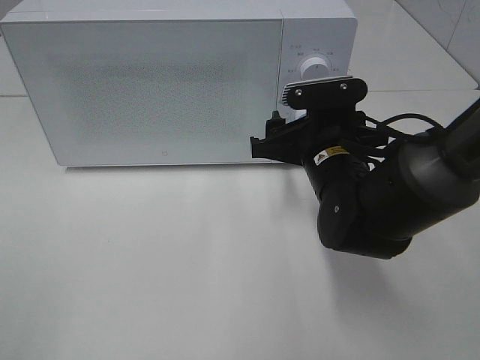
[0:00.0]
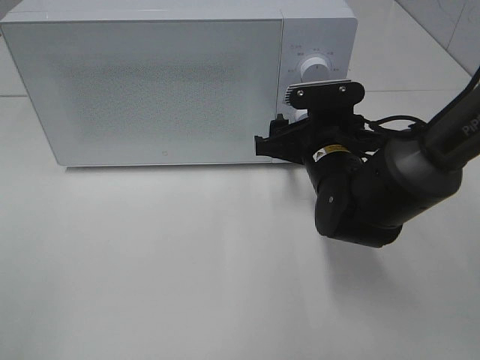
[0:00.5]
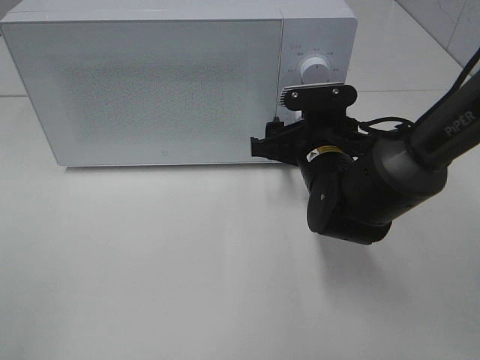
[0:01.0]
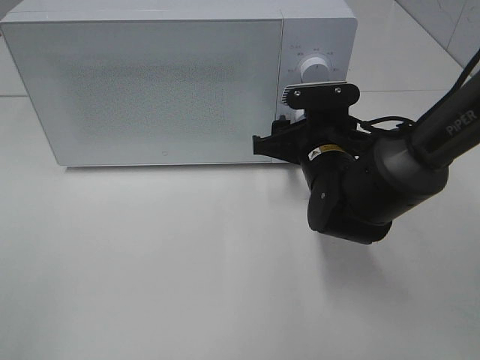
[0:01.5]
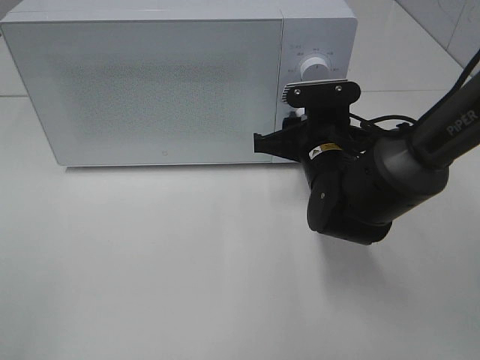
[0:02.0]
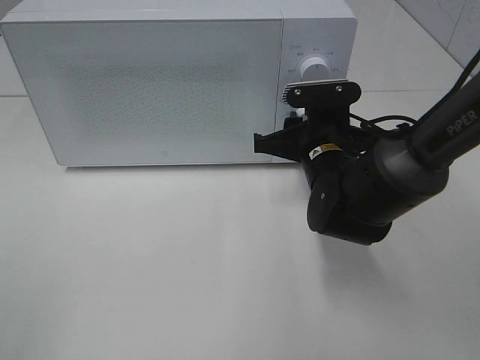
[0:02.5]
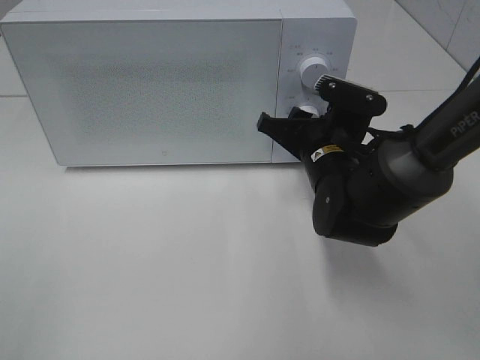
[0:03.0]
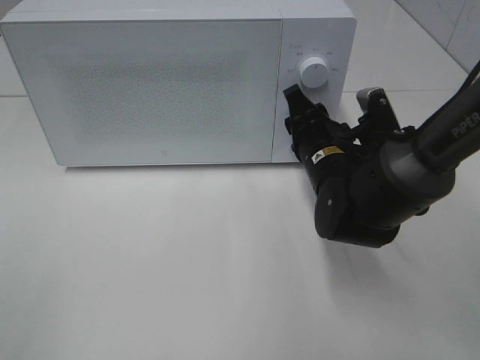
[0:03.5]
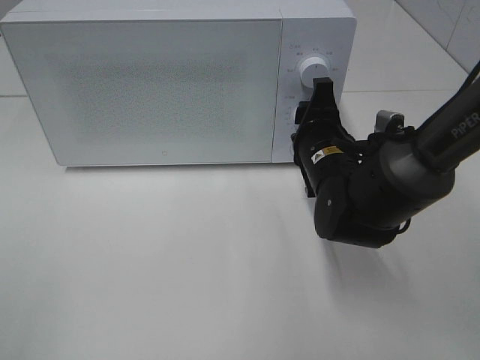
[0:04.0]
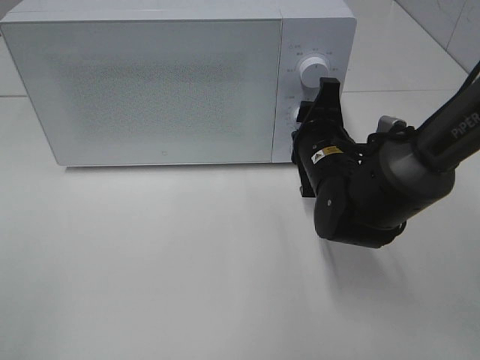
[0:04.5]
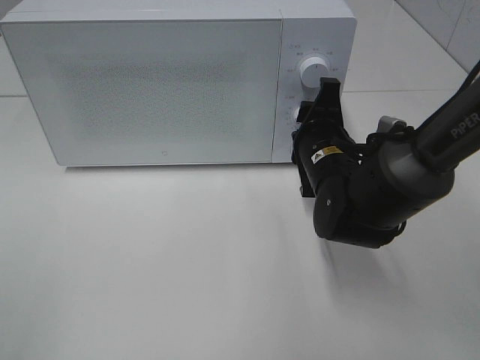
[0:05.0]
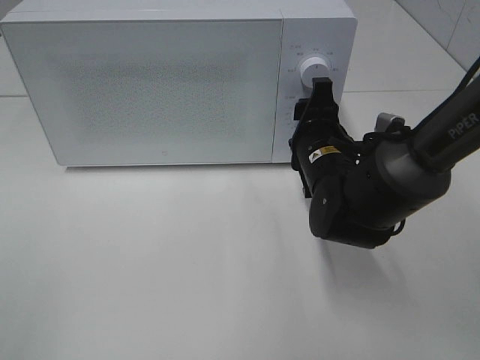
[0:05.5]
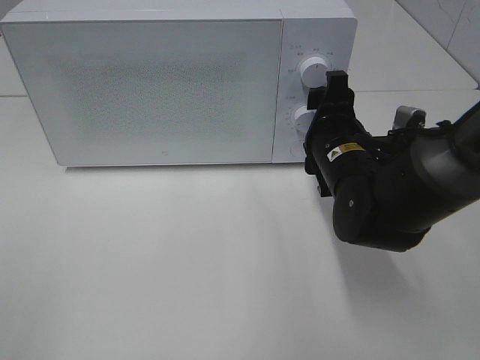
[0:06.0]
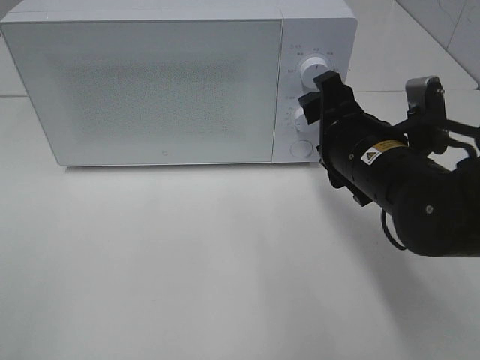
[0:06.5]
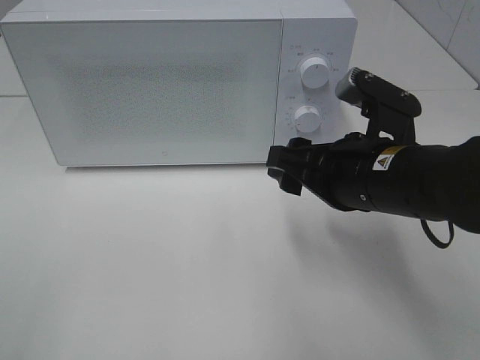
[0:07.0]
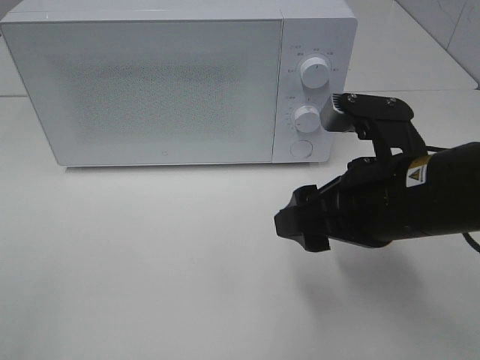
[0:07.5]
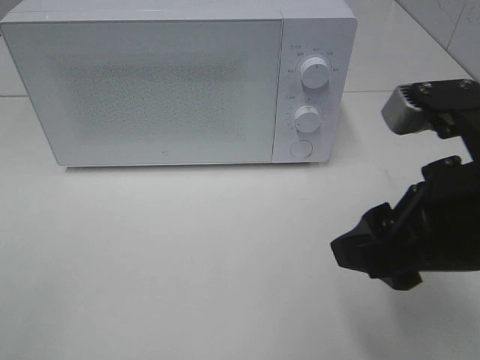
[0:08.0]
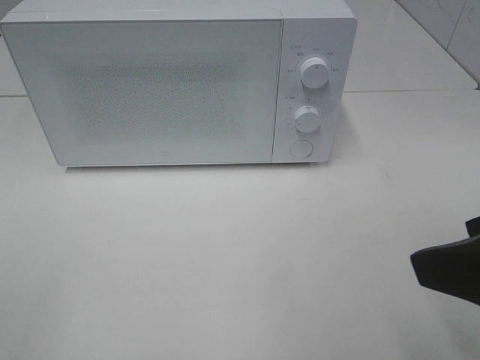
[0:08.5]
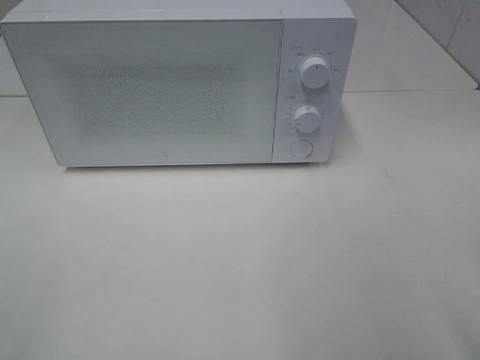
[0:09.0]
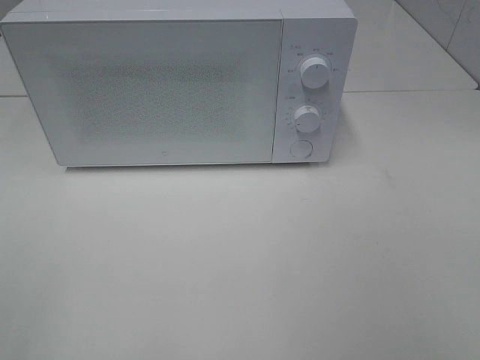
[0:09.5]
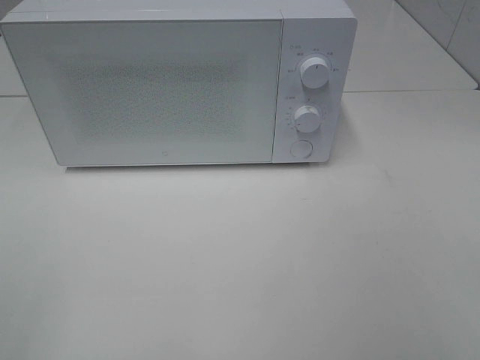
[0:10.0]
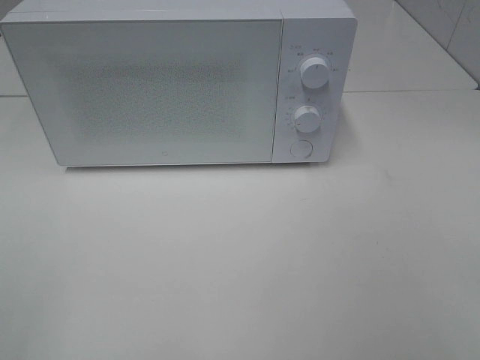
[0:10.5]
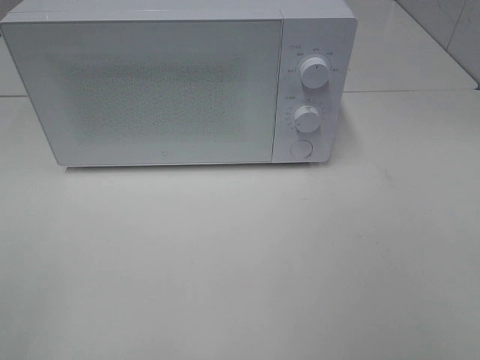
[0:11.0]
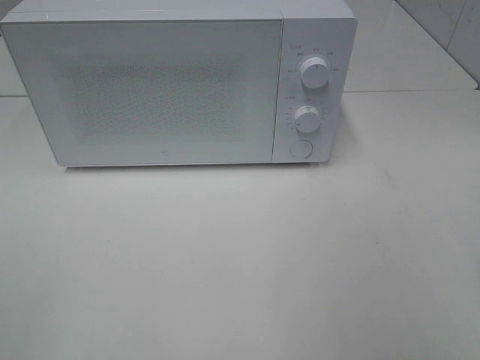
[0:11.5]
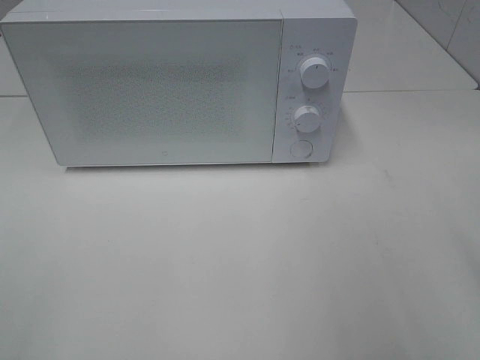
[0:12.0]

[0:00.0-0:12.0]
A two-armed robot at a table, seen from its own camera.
Task of the whole recording: Heat the burger.
Step, 0:00.0 to 0:05.5: Right hand: twist timer button.
0:00.0 to 0:02.0: The right gripper closes up.
0:04.0 to 0:06.0: The grippers move only a little.
0:06.0 to 0:08.0: The right gripper moves backward and upward, approximately 20 cm.
0:08.0 to 0:10.0: The right gripper goes some 20 cm backward and to the right.

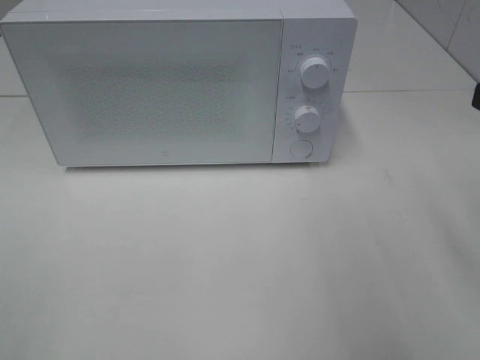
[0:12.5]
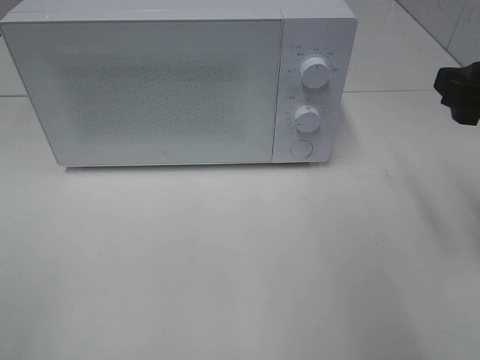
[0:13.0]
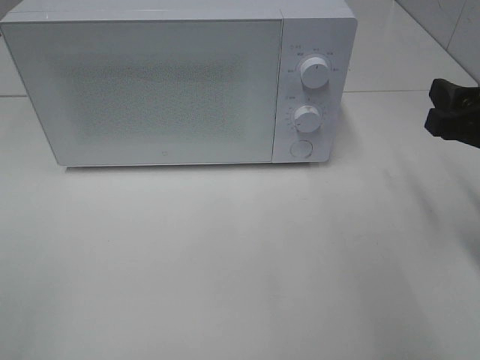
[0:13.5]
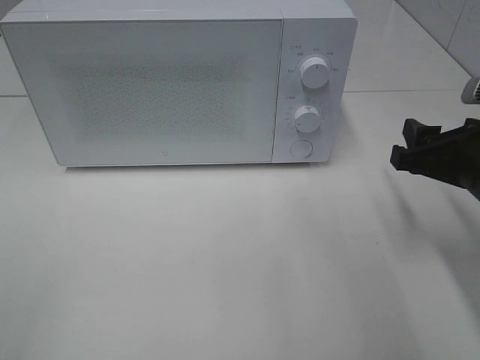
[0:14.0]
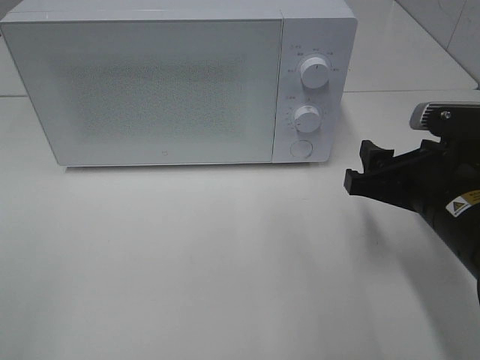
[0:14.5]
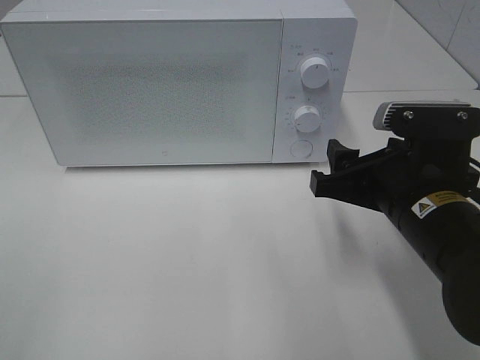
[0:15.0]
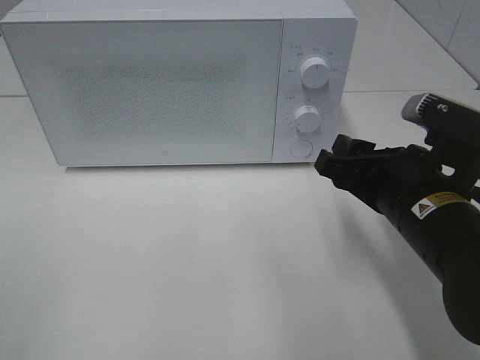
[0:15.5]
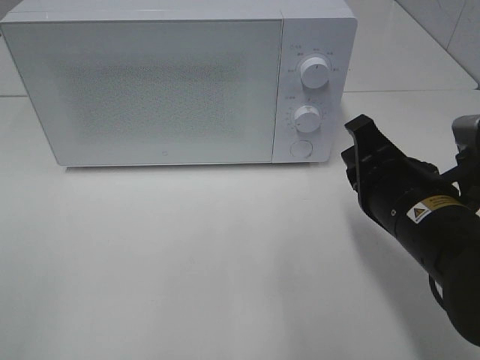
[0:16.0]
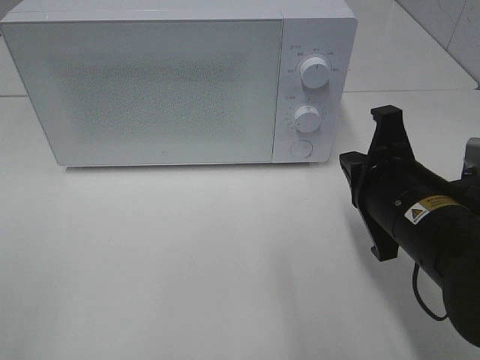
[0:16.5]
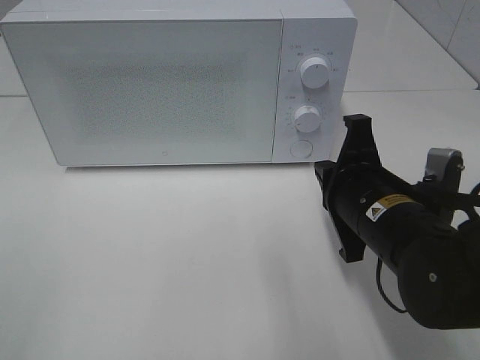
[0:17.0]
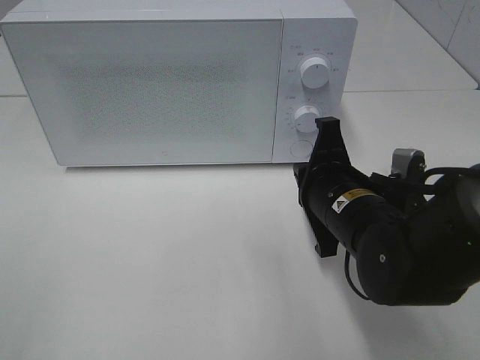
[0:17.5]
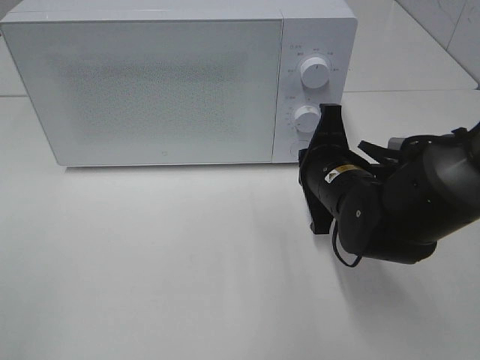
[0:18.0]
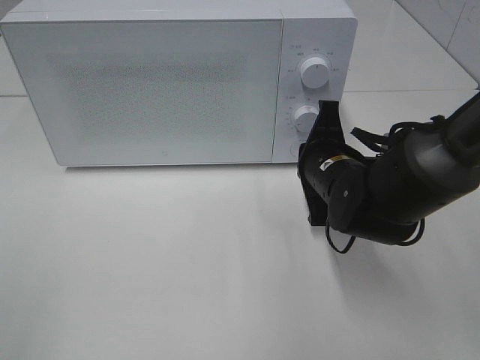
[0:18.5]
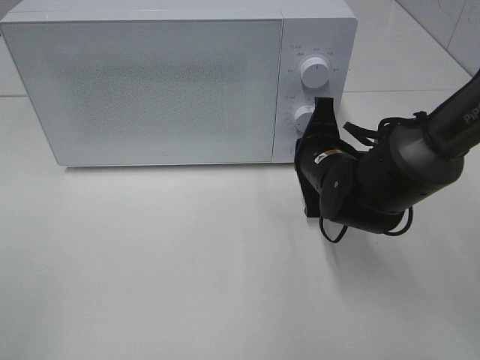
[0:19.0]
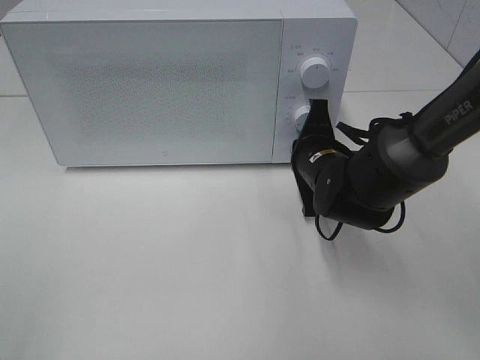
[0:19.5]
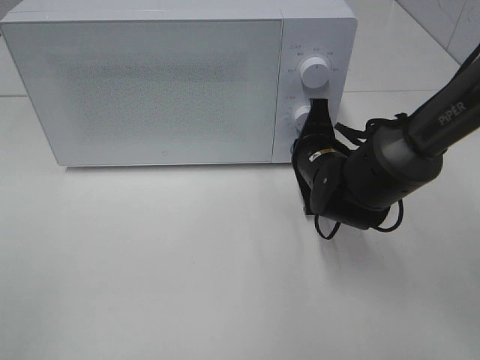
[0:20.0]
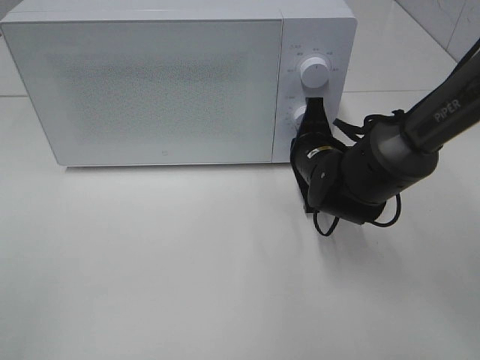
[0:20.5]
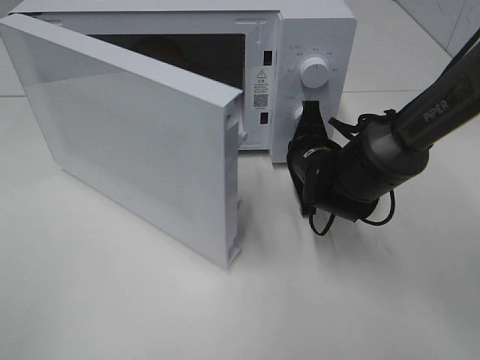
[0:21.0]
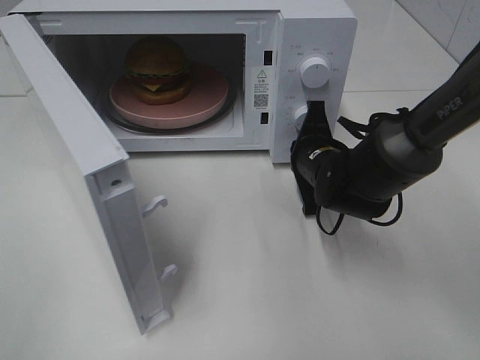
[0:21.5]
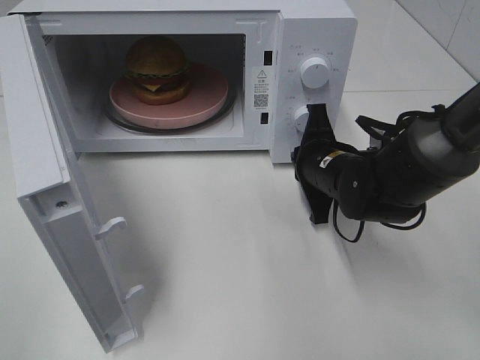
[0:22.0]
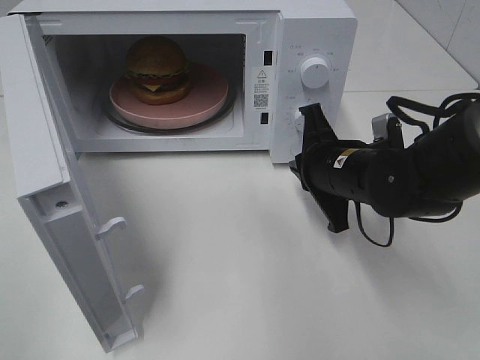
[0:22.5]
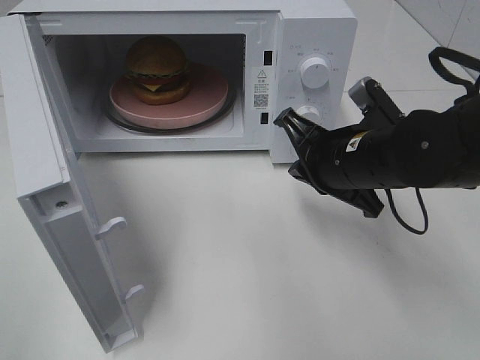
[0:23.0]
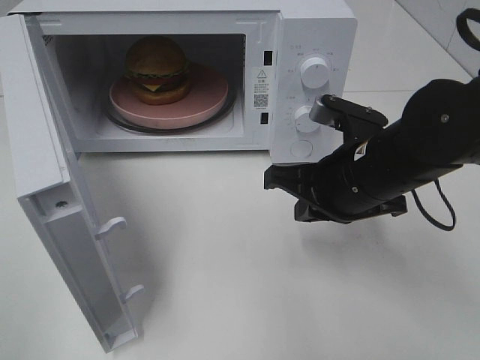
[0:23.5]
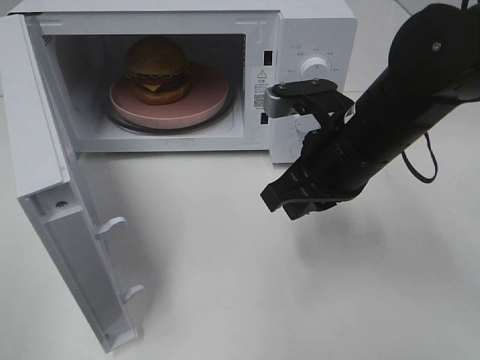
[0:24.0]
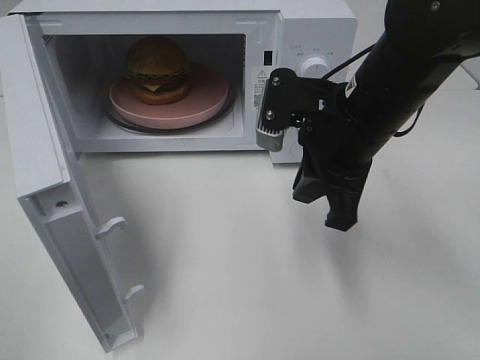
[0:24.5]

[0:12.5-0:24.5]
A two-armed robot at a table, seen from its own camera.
Task of the whole recording: Heat the burger.
Step, 0:12.5 to 0:22.0: Right hand: press the switch.
0:12.5 to 0:14.5: The right gripper travels downward and to the left by roughly 15 cm.
0:14.5 to 0:16.5: The right gripper closes.
0:16.5 to 0:18.5: The right gripper goes about 10 cm forward and downward.
0:18.5 to 0:20.5: The grippers stay close to where they were, moving slightly.
0:20.5 to 0:22.5: The right gripper changes place by approximately 5 cm.
0:22.5 to 0:24.5: The right gripper shifts about 10 cm upward.

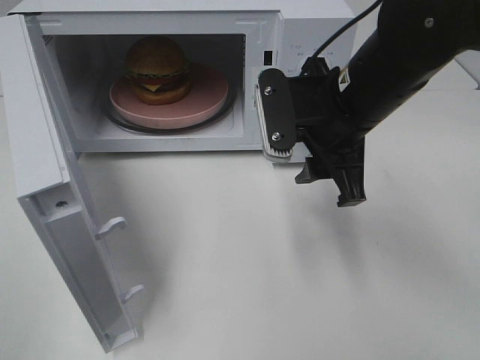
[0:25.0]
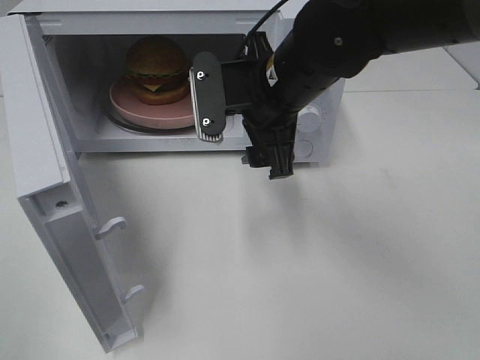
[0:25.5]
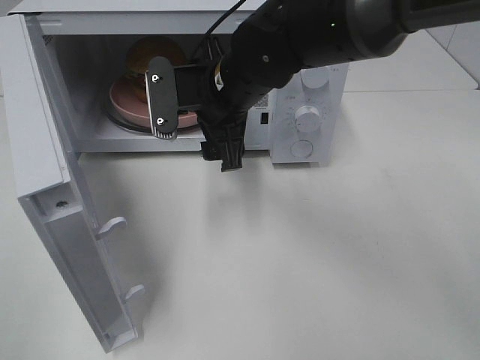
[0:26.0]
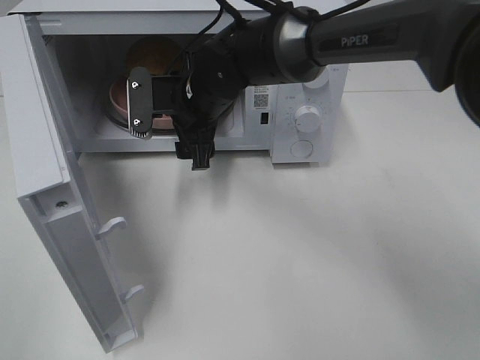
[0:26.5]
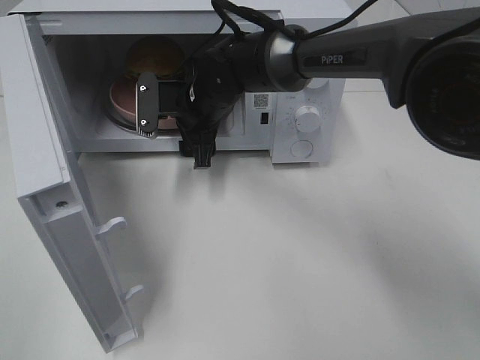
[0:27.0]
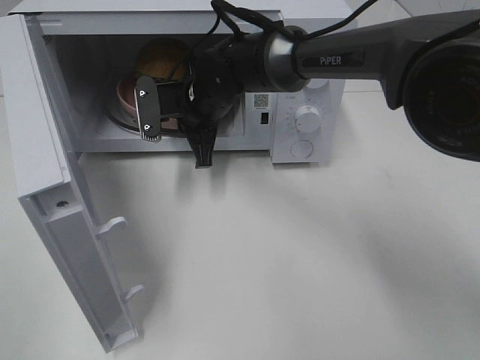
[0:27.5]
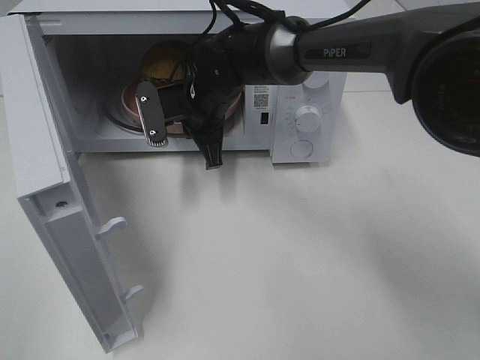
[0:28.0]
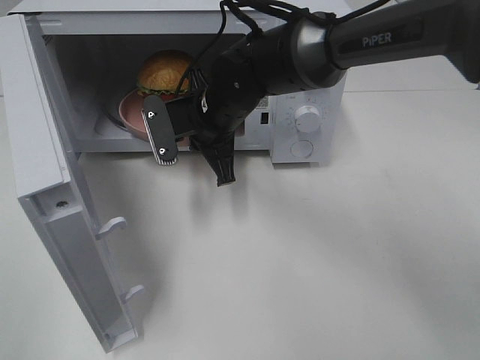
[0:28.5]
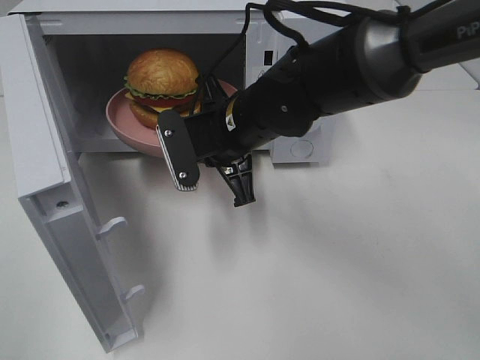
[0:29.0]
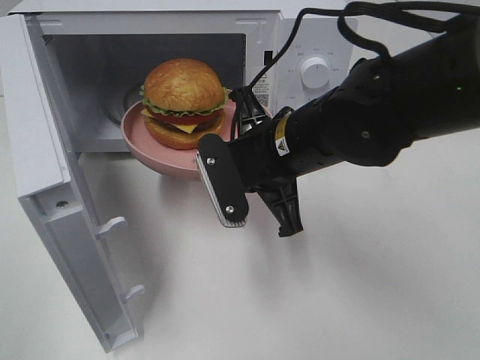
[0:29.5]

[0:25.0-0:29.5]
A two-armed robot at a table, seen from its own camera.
Task of the whole recording: Heat the burger.
Step, 0:25.0 to 0:27.5: Right hand: grab the plate with the hamburger.
0:25.0 to 0:27.0: The right gripper travels to the left, forward and downward by some 20 cm.
0:27.0 to 0:29.5: The right gripper goes roughly 15 cm backward and to the right, and closes its fingers.
